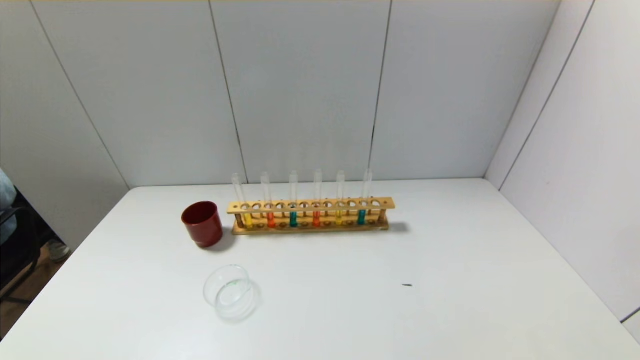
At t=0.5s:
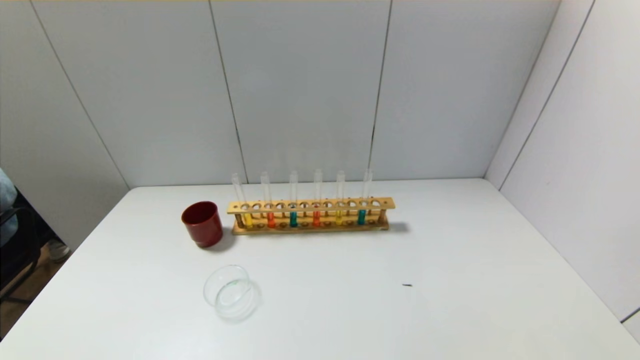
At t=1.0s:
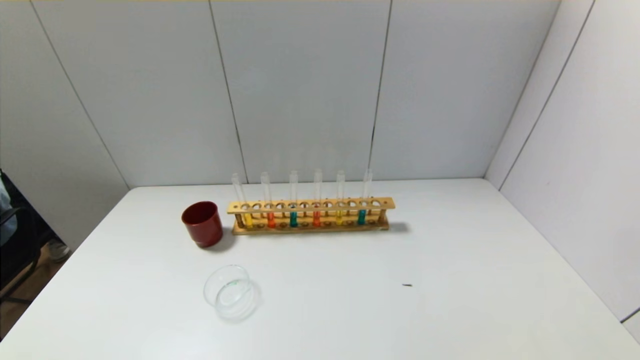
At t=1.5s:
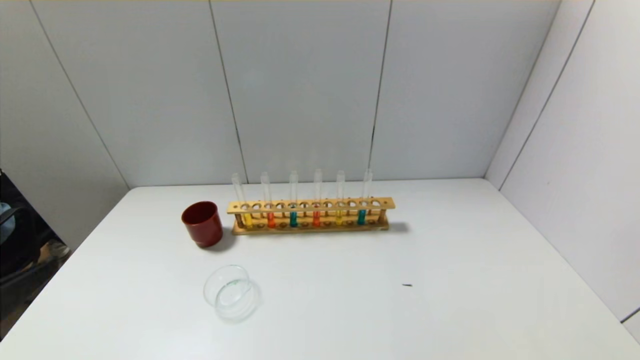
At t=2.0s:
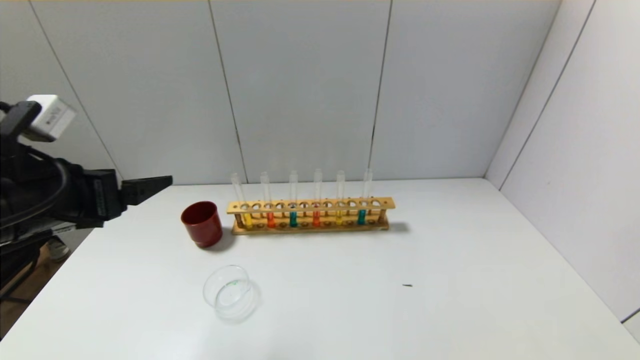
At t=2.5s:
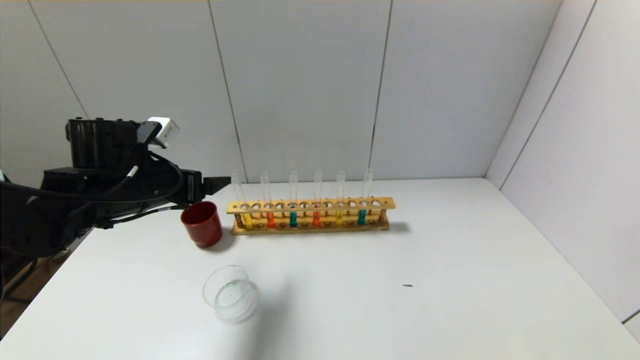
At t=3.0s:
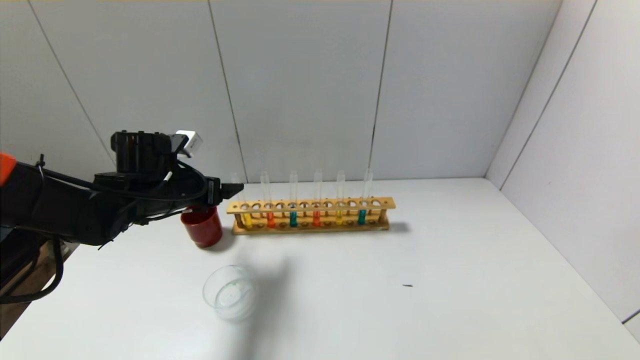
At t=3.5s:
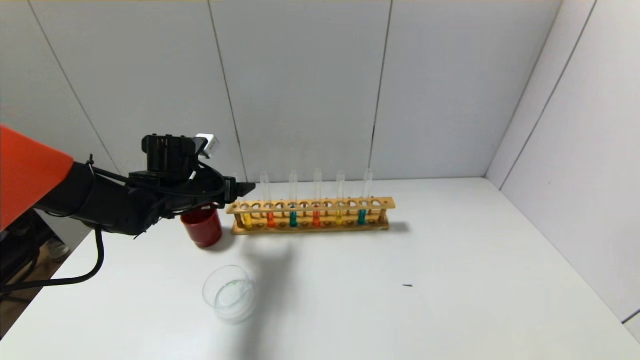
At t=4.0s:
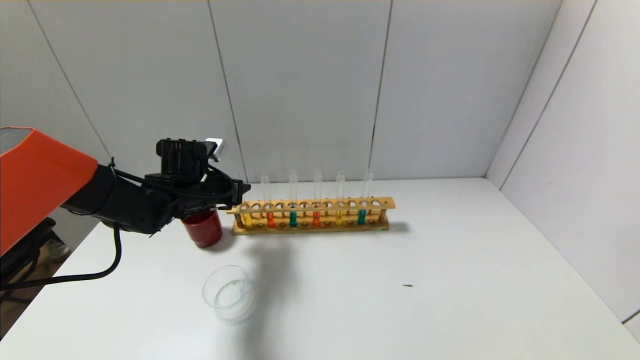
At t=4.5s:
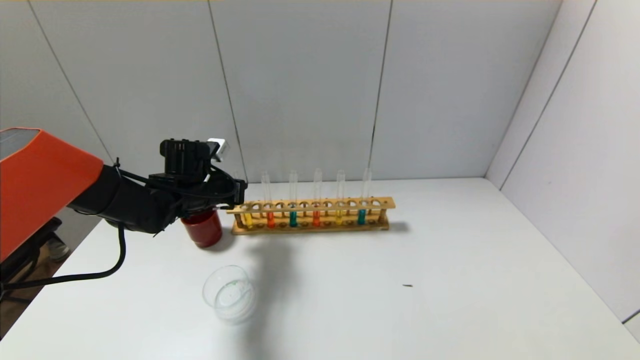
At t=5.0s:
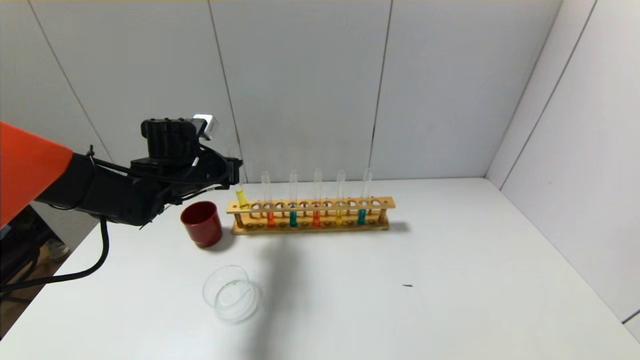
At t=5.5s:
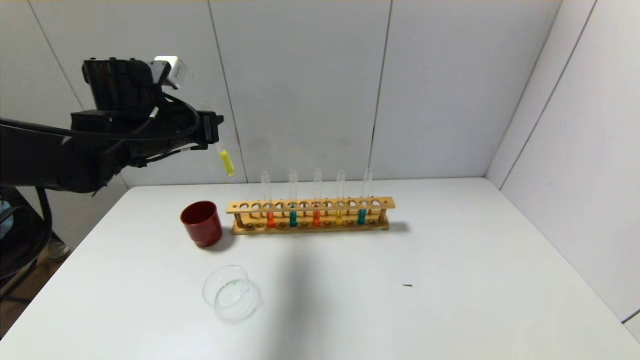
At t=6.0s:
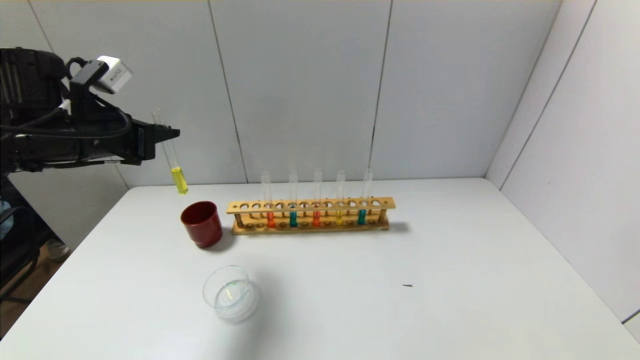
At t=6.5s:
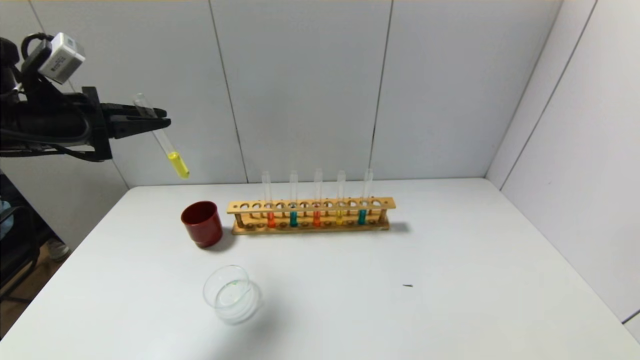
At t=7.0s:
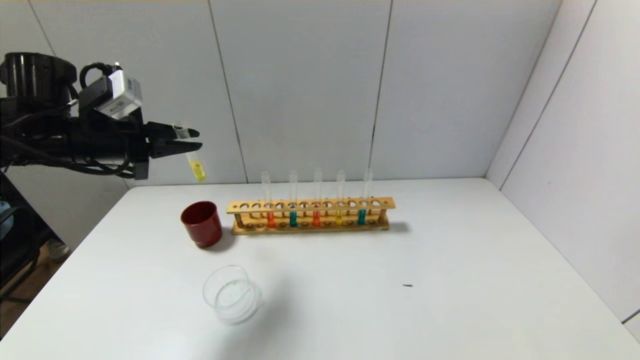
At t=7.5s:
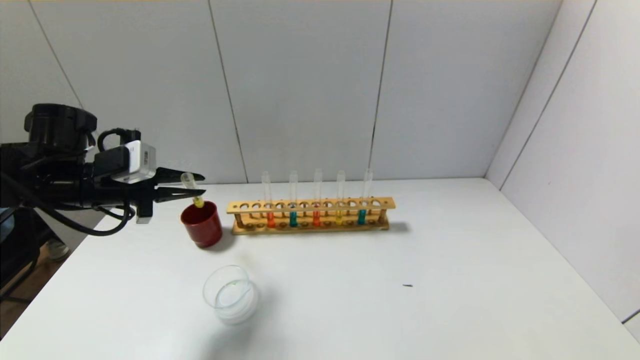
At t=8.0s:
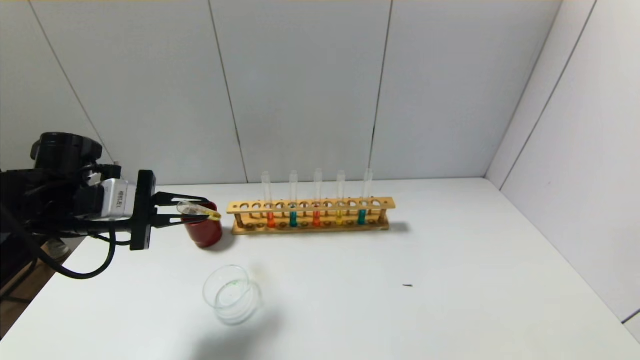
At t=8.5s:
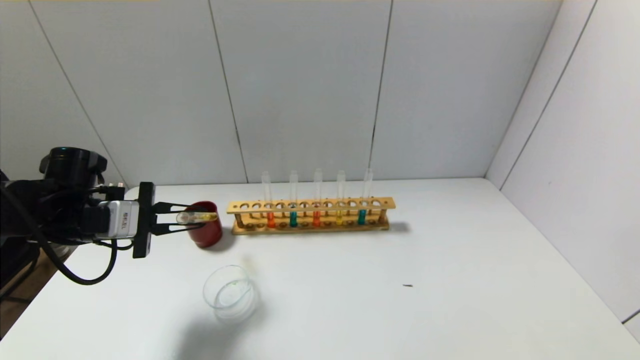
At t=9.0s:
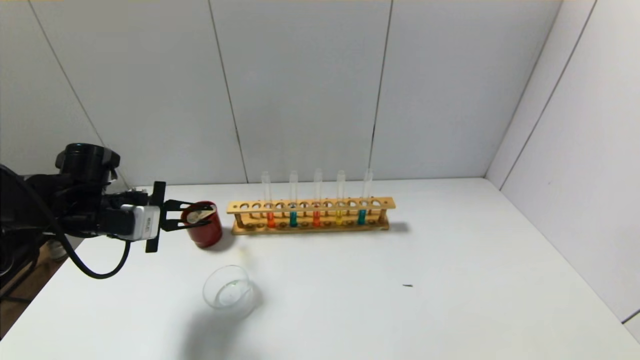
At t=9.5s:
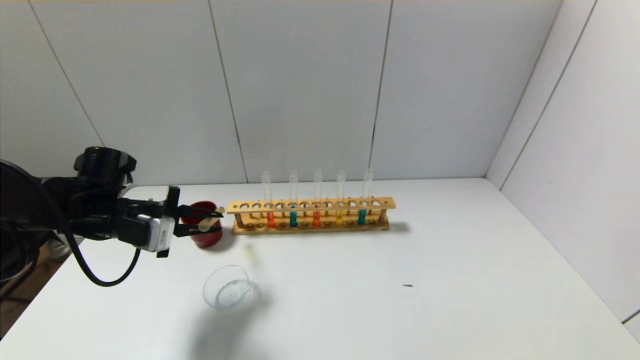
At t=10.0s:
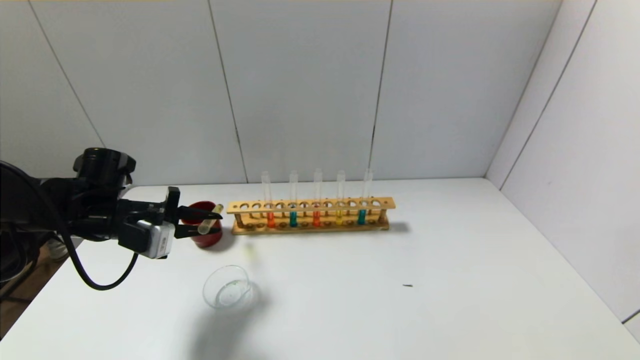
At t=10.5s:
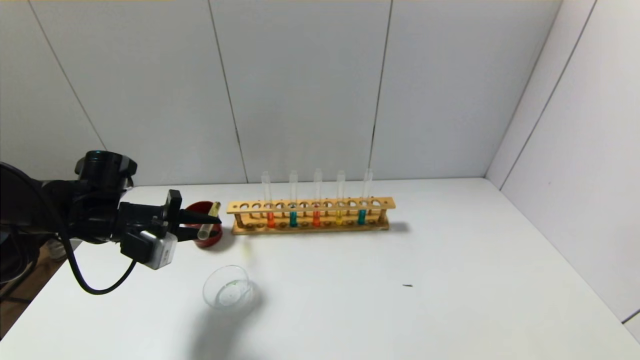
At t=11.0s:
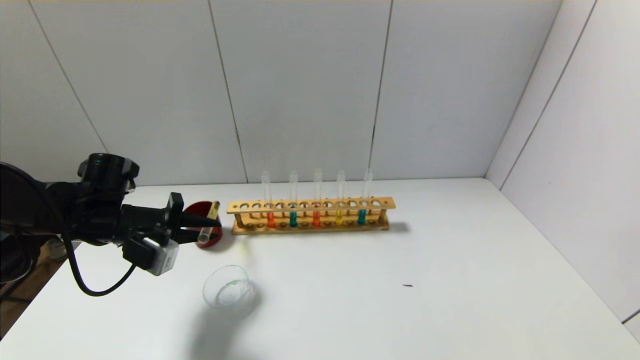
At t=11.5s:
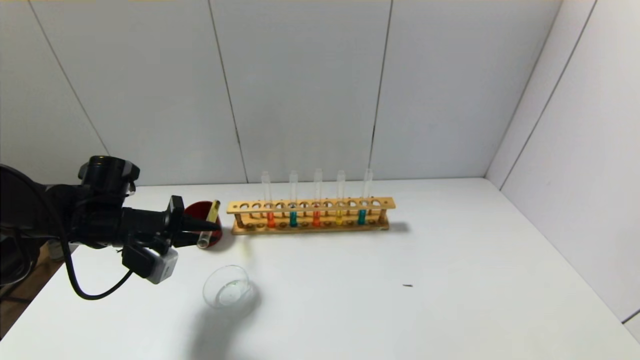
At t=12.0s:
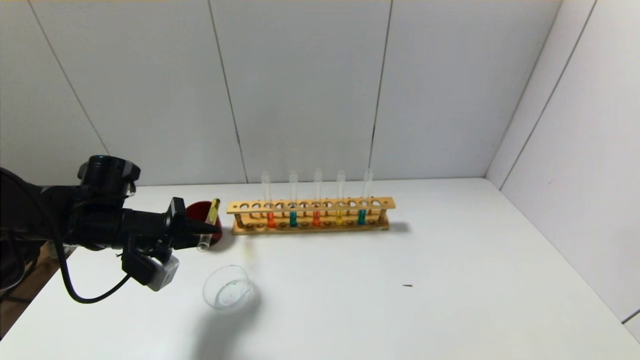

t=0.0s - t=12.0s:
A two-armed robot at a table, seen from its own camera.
Step, t=0.0s - t=4.0s: Grasp the yellow reagent with the left gripper.
t=0.0s - t=2.0s: The left gripper travels forward and upward by approximately 30 cm.
t=2.0s - t=4.0s: The left gripper travels forward and downward by about 20 cm, and closes up.
t=4.0s - t=6.0s: The left gripper shifts some 20 cm upward, to the left and backward.
t=6.0s - t=8.0s: The left gripper travels downward by about 10 cm.

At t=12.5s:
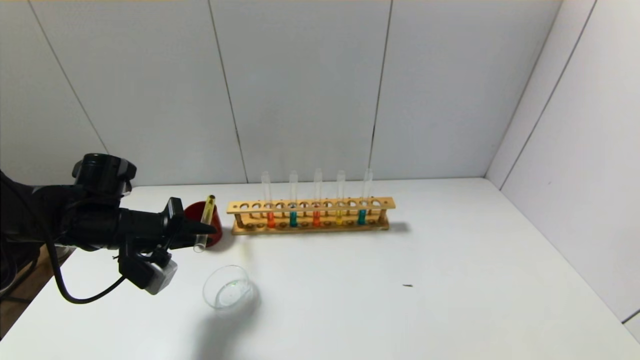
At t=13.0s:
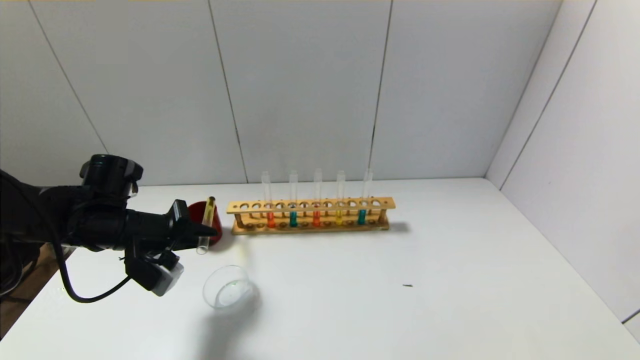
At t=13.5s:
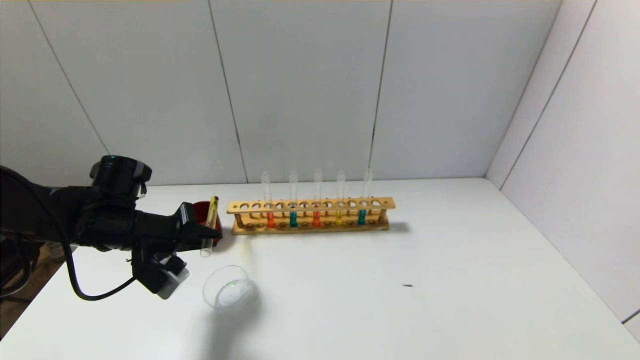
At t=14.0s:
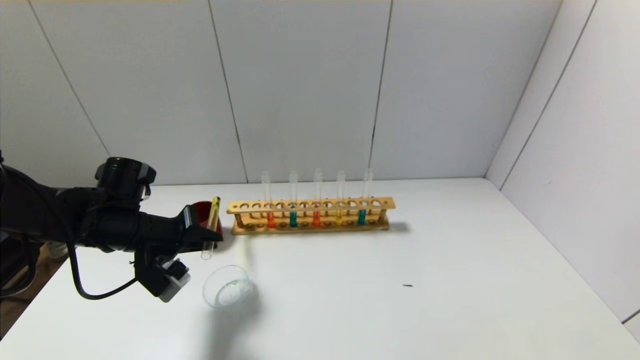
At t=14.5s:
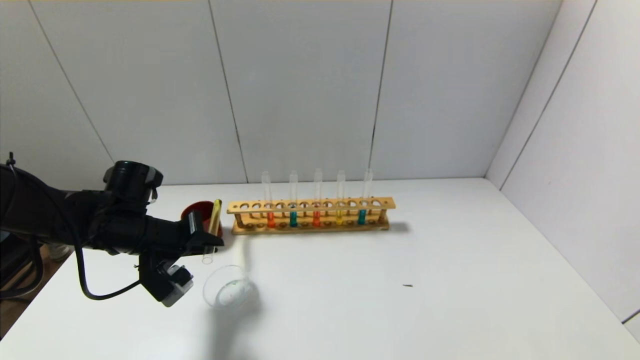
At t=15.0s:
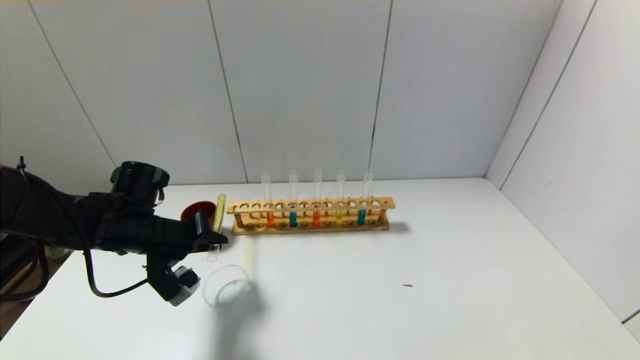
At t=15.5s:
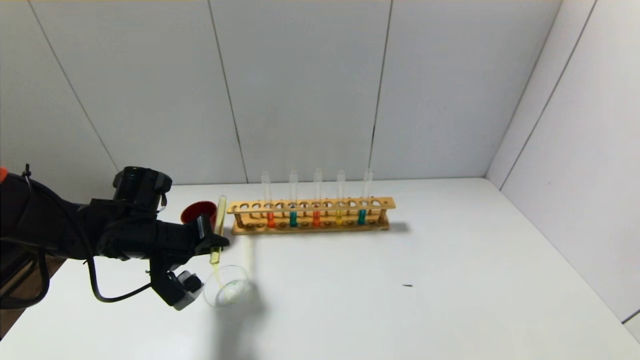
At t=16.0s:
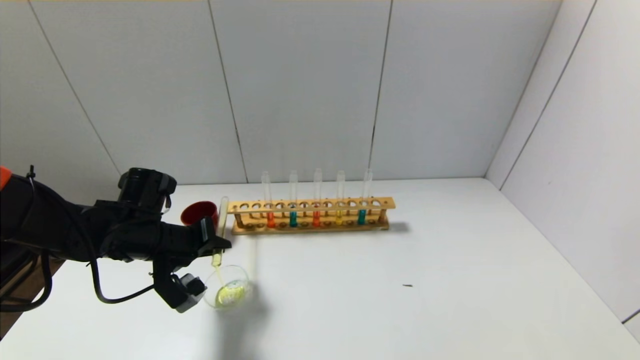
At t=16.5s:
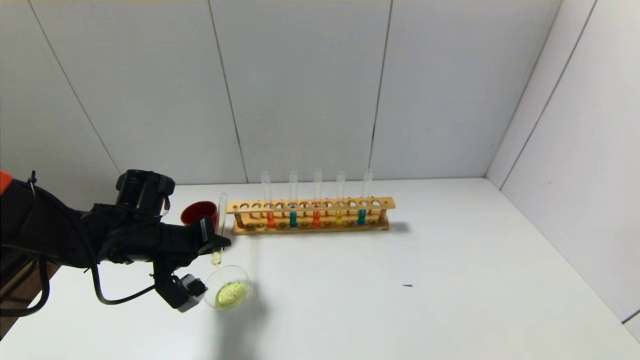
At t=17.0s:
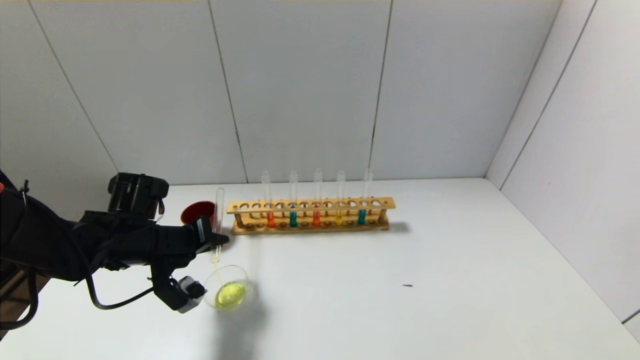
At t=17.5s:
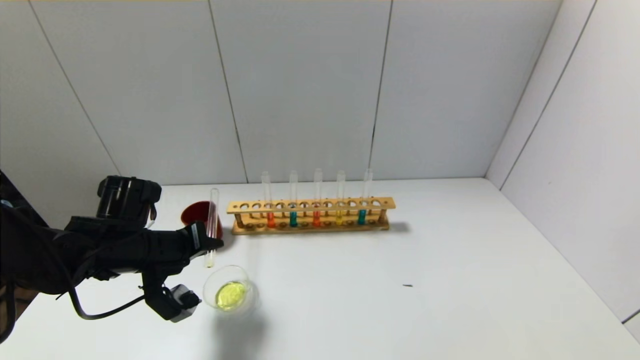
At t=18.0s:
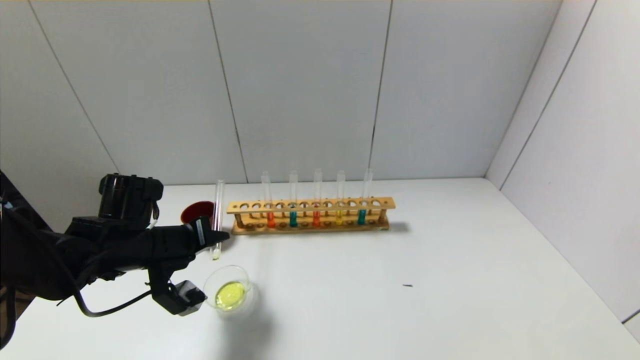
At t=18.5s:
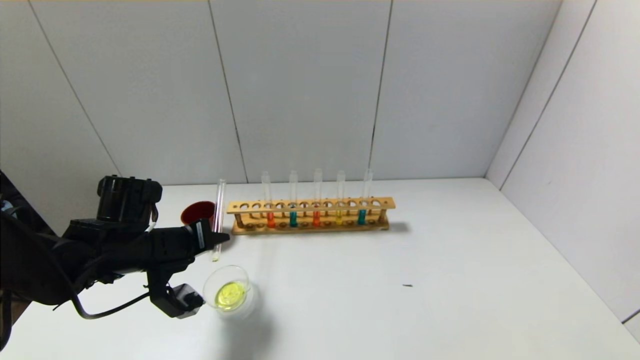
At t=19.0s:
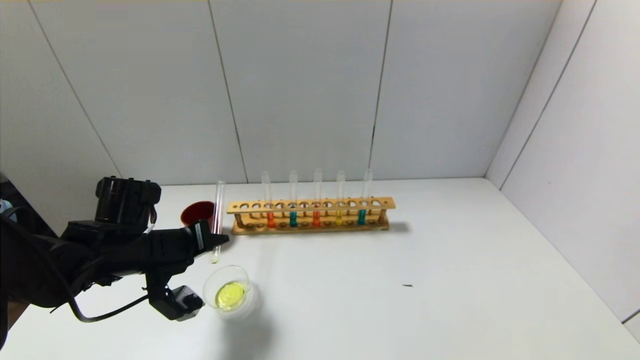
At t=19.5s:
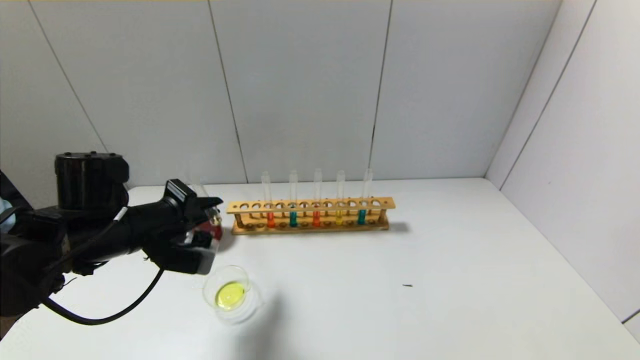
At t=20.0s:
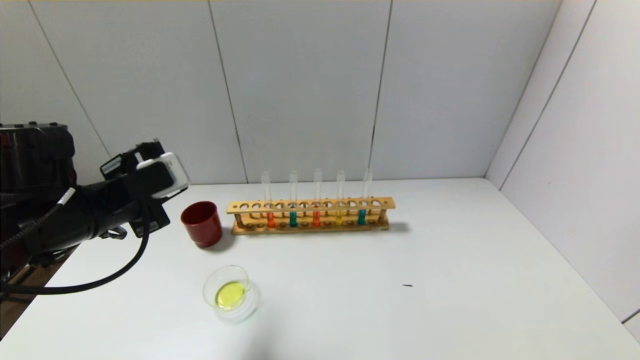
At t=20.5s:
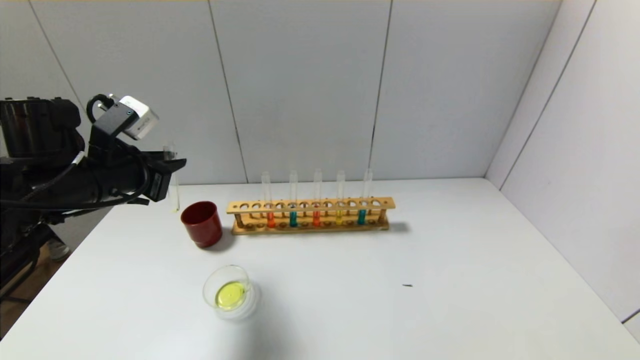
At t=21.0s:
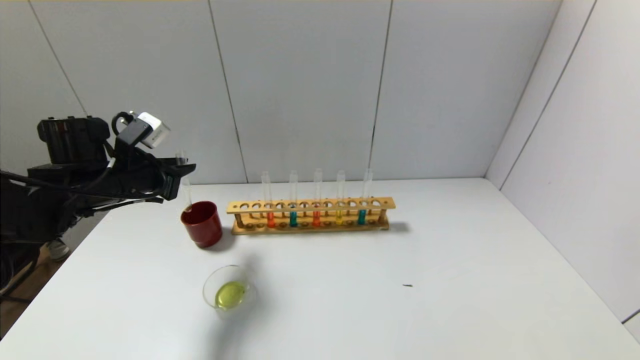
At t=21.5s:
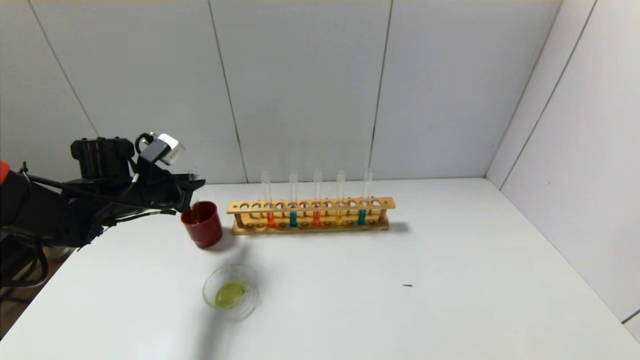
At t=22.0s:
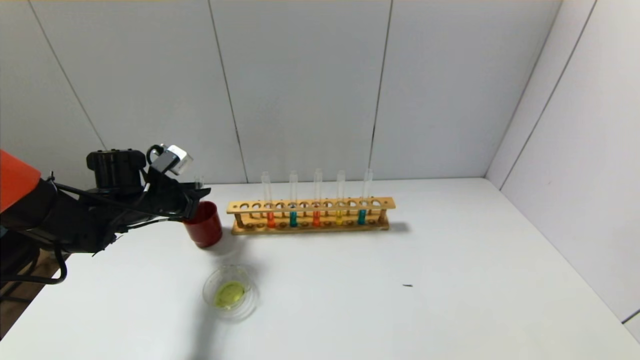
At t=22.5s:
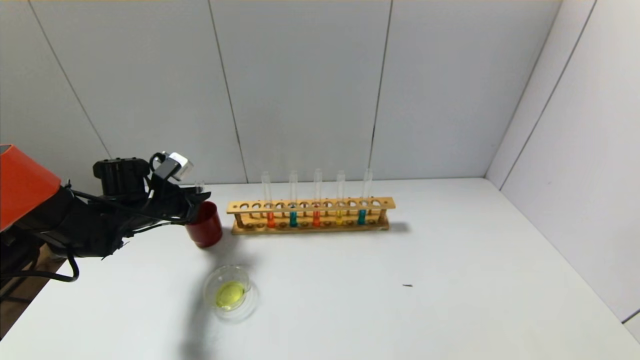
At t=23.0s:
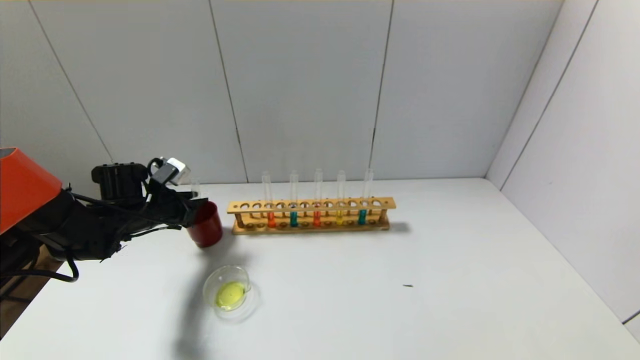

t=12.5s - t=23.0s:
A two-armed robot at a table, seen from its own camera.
Step, t=12.5s - t=19.0s: Pour the yellow reagent into the graduated cylinder with the left gripper.
t=12.5s - t=14.5s: The grippers stay close to where they were, moving slightly.
t=14.5s - t=16.5s: The grippers make only small movements.
t=16.5s - t=19.0s: The grippers make only small movements.
t=19.0s - t=21.0s: The left gripper moves upward, forward and to the left, some 10 cm.
t=21.0s - t=23.0s: The left gripper moves downward, about 10 cm.
